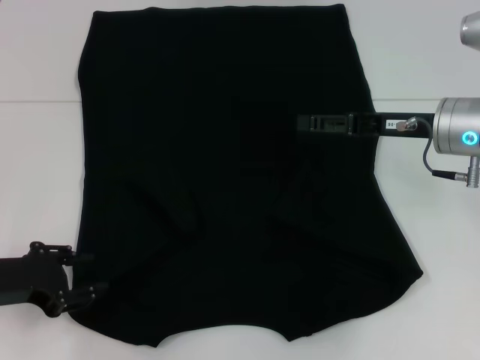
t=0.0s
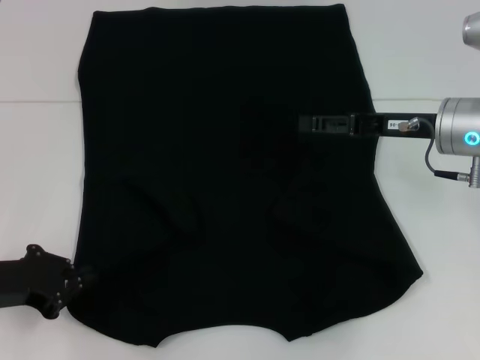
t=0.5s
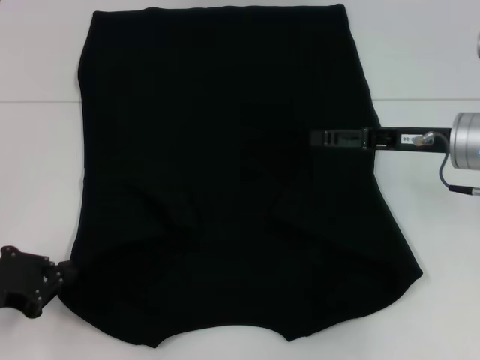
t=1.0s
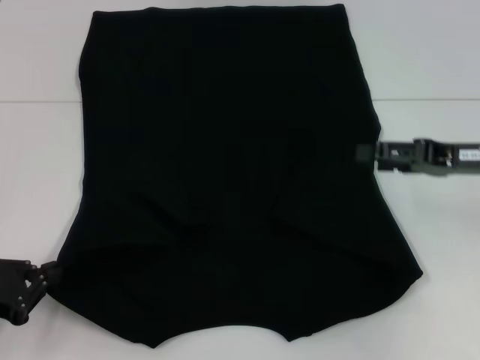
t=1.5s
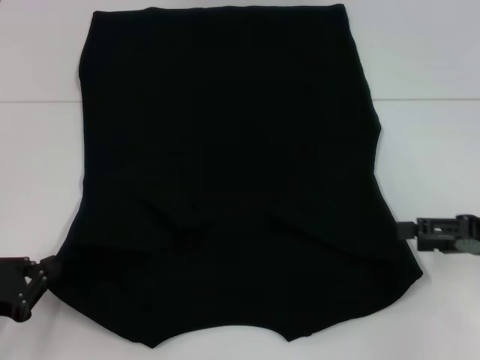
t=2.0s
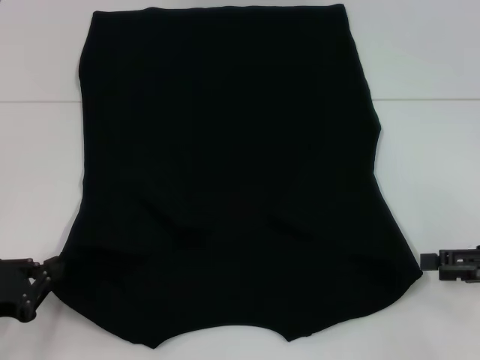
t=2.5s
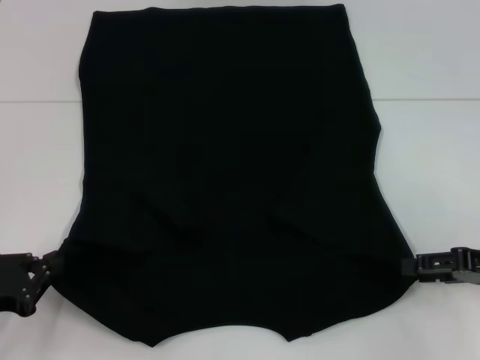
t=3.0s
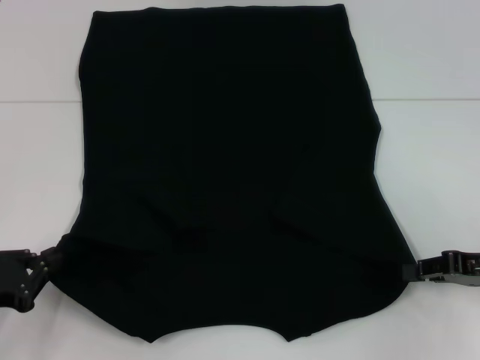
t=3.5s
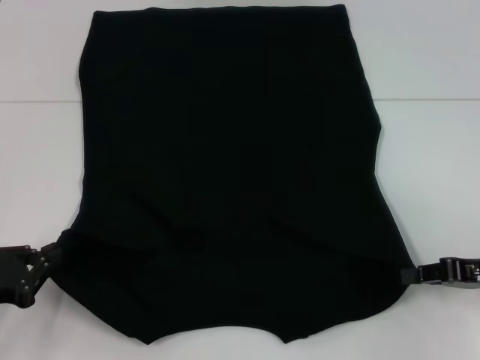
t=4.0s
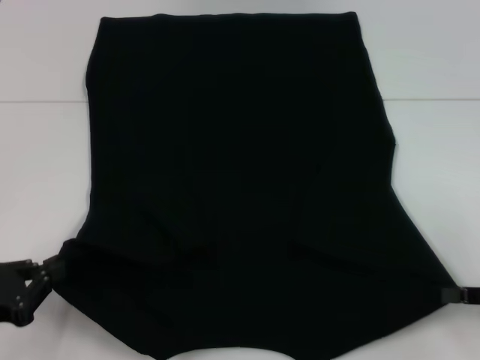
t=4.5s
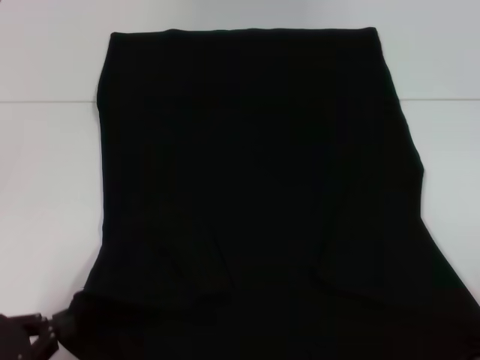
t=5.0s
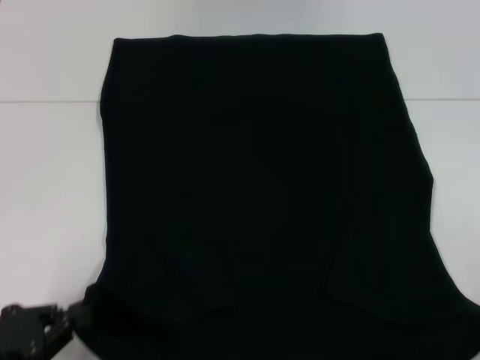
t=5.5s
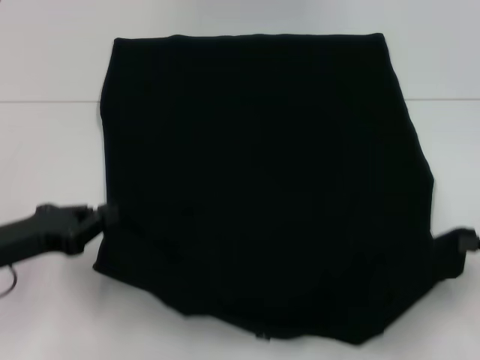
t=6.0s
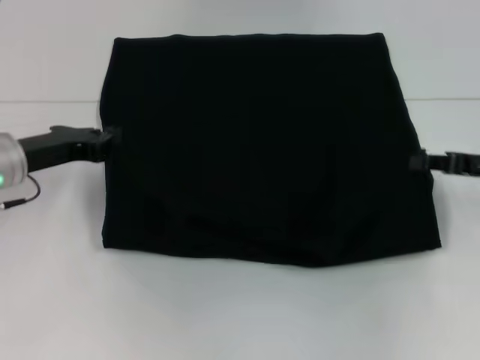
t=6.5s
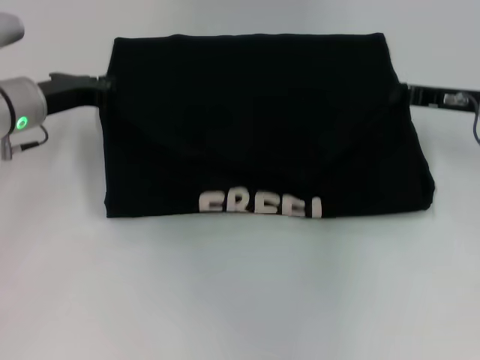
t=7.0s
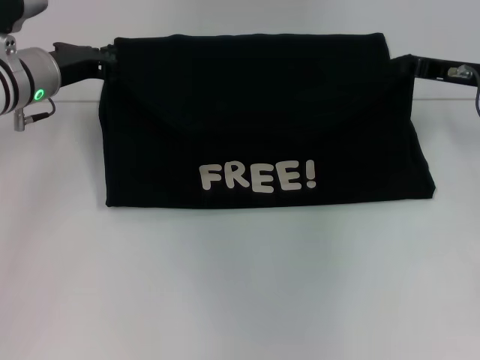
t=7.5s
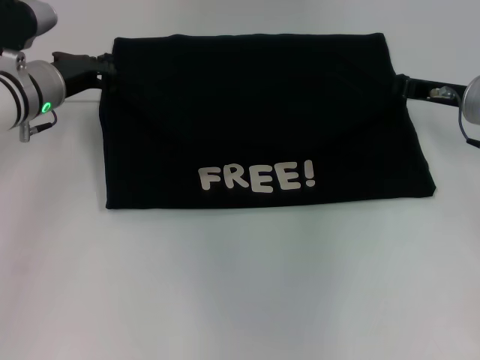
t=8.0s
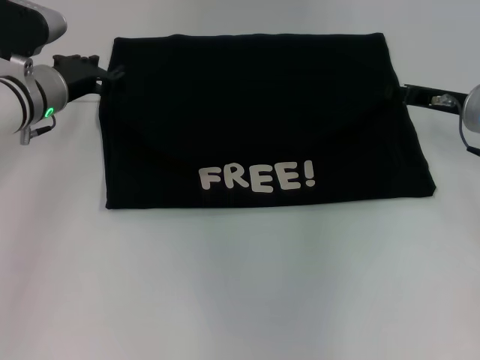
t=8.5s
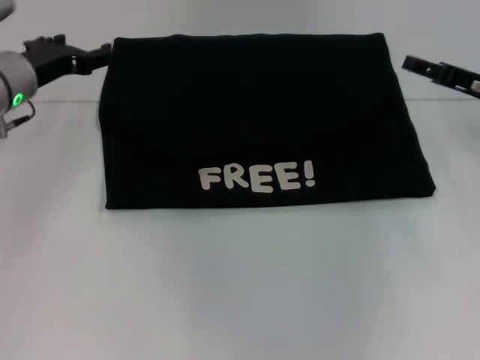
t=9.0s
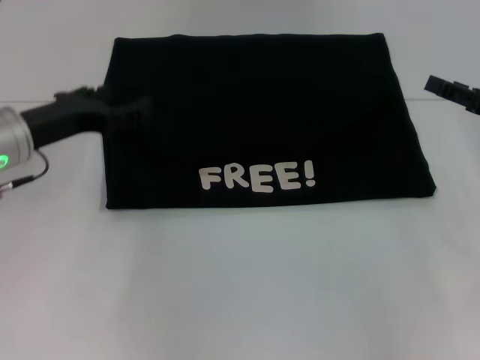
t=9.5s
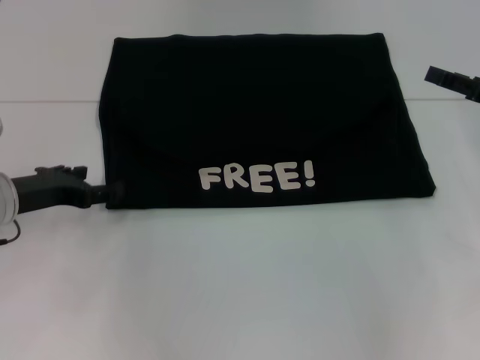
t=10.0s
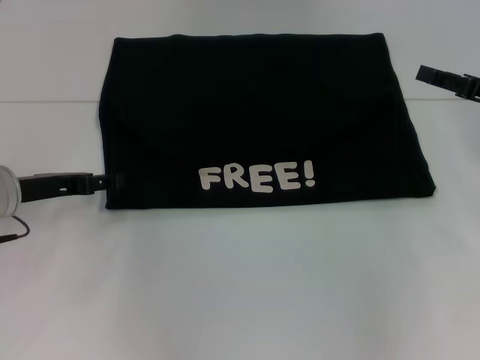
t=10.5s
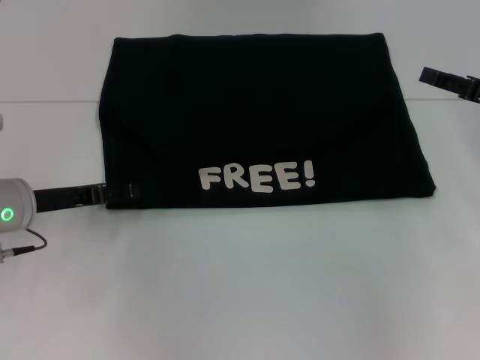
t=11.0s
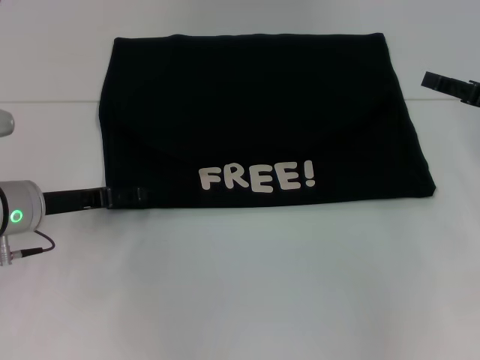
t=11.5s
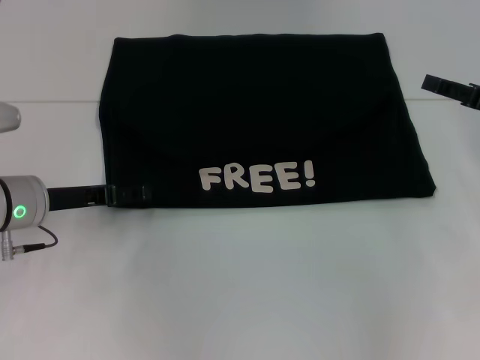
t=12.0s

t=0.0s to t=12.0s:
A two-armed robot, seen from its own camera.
Step, t=1.5s to t=3.5s: Grab the bottom right corner with your right hand.
Step, t=4.0s to t=8.5s: Fold the clothes with your left hand.
Step, t=4.0s to t=8.5s: Fold the clothes with your right hand.
t=0.0s to t=2.0s: The left gripper goes approximately 5 cm backward, and closes, while the right gripper goes approximately 15 cm to the right and backward.
t=2.0s to t=4.0s: The right gripper closes.
t=4.0s to t=6.0s: The right gripper travels to the right by about 5 cm, and goes backward and returns, some 10 cm each way, while the left gripper moves about 5 cm.
t=6.0s to t=8.0s: The right gripper goes roughly 20 cm forward and to the left; the left gripper shifts about 20 cm forward.
t=8.0s to t=10.0s: The right gripper goes approximately 10 cm to the right and backward, and opens; the left gripper shifts some 10 cm backward, and opens.

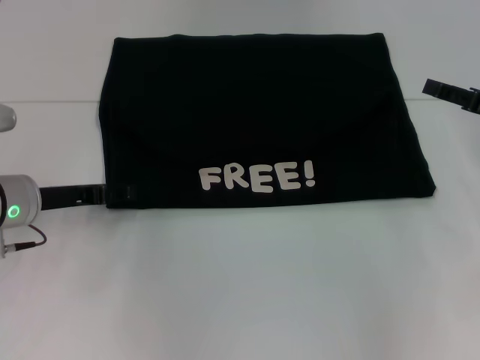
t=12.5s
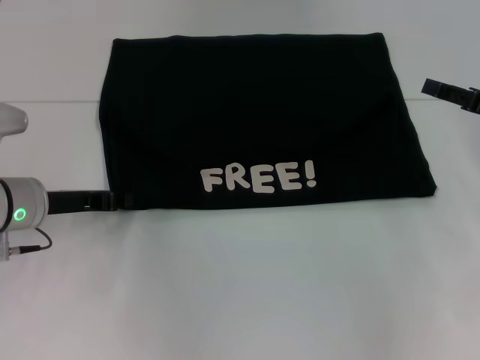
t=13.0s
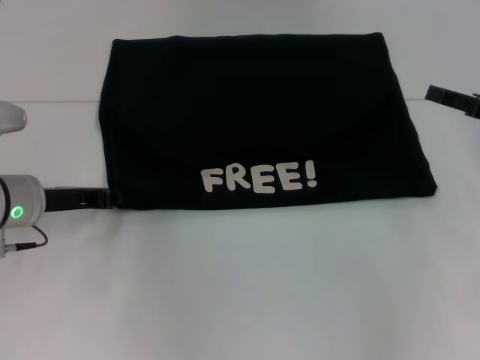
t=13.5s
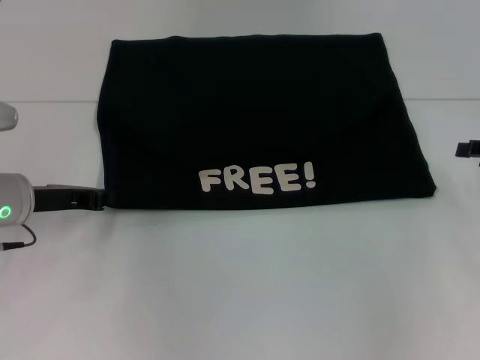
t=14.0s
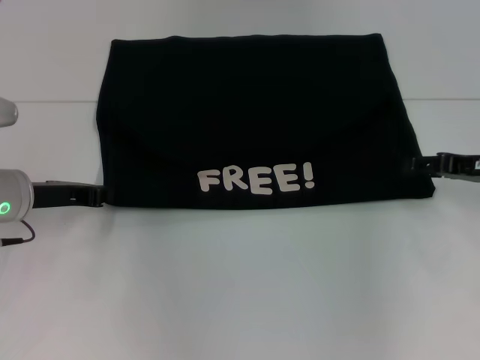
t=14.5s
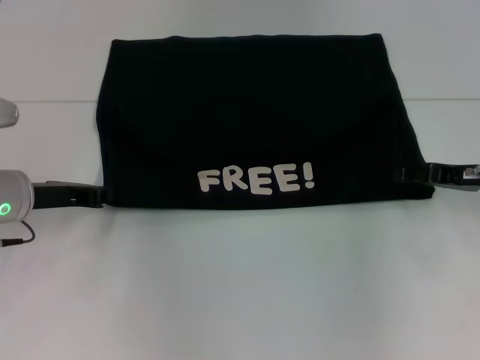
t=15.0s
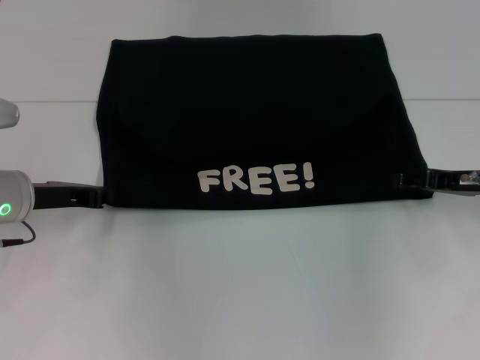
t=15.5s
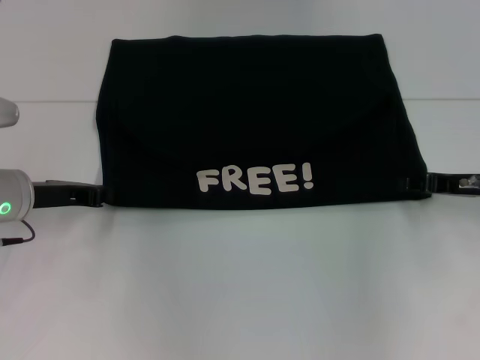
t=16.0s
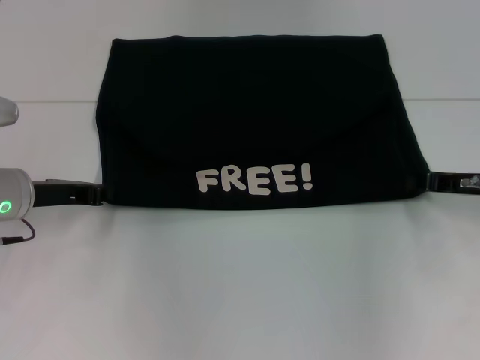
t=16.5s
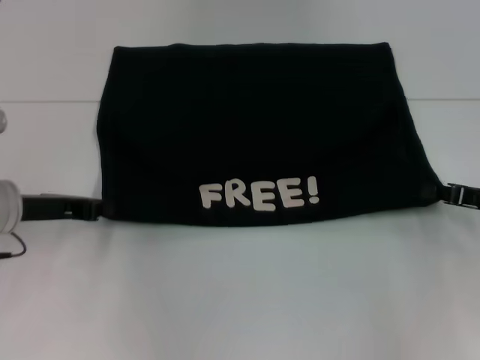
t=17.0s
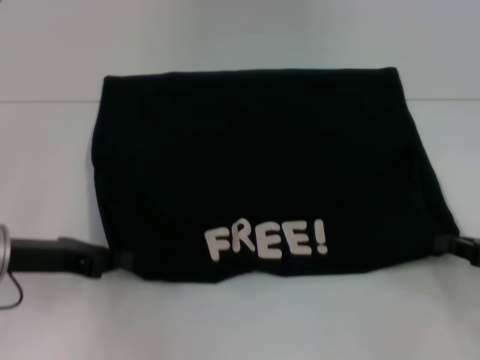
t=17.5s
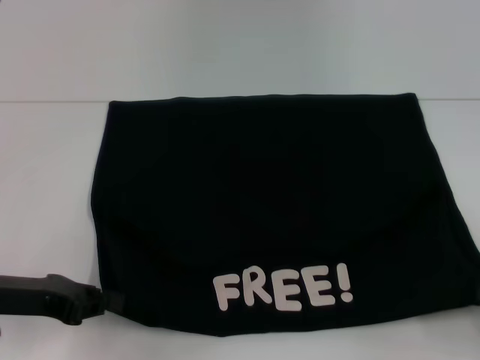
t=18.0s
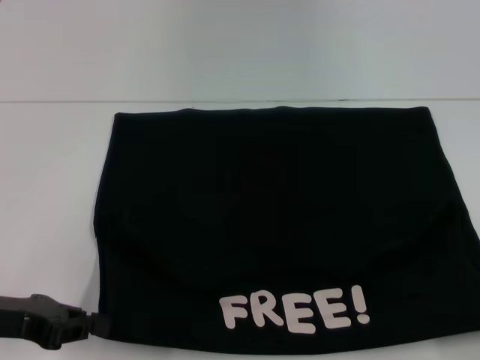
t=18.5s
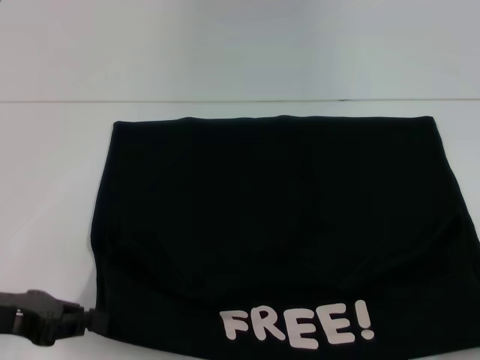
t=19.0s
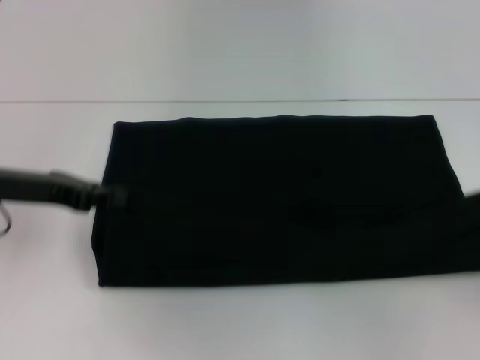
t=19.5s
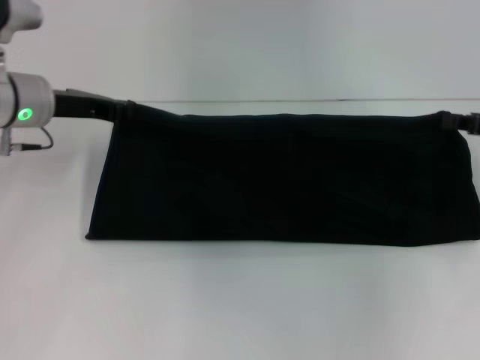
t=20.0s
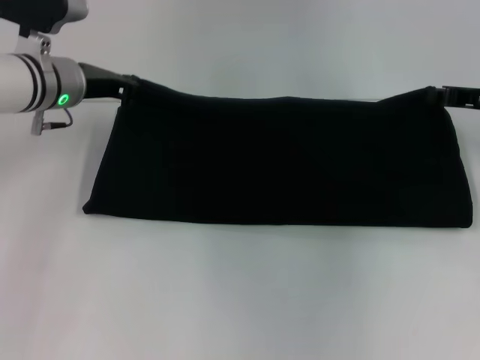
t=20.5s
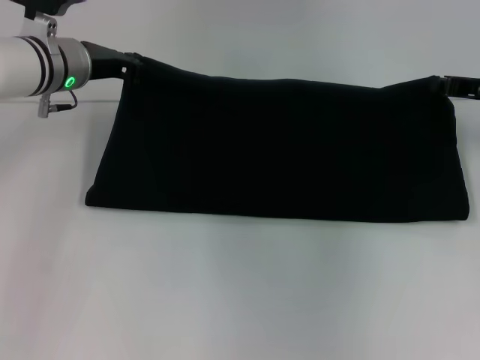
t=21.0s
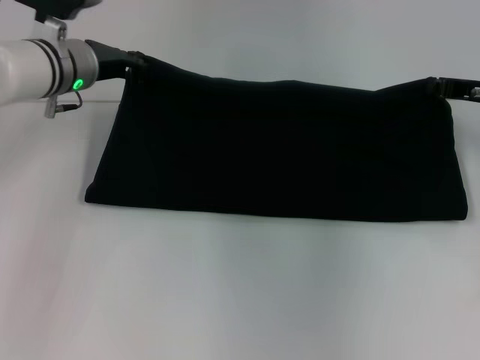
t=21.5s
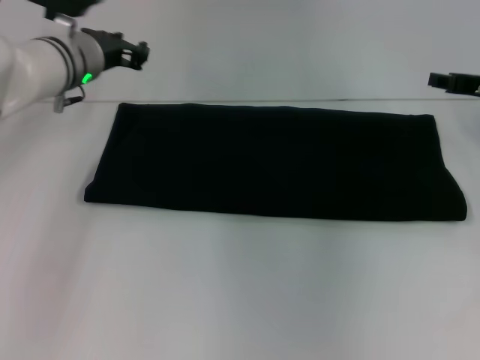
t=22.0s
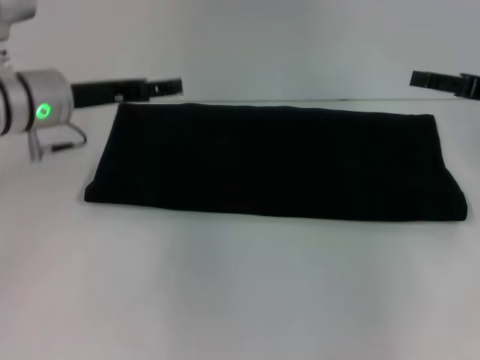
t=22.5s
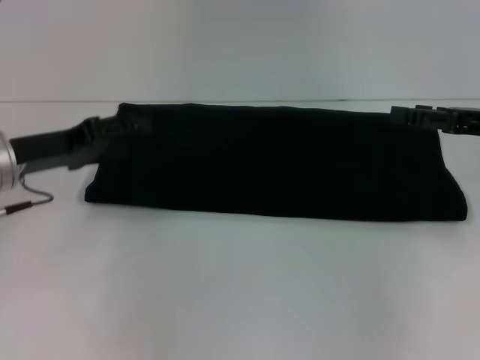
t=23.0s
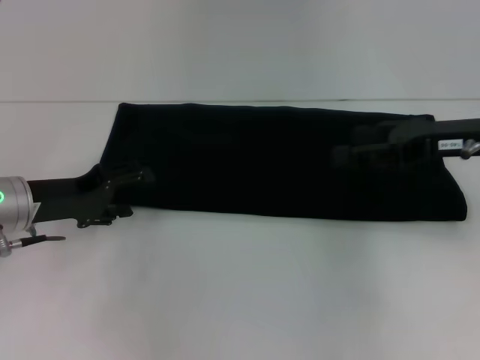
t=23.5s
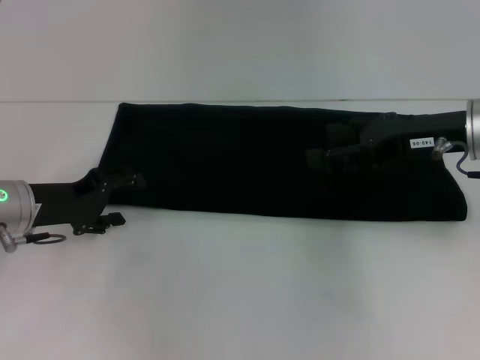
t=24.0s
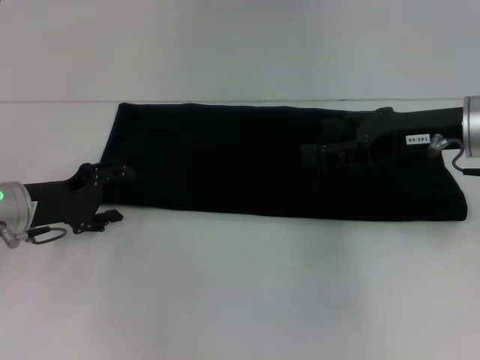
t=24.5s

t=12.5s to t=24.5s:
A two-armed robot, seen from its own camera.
Step, t=12.5s to t=18.5s: Pull the clothes with your left hand.
Step, t=12.5s to t=18.5s: Pull the clothes with your right hand.
Step, t=19.0s to t=21.5s: Fold the clothes with your right hand.
t=12.5s to t=14.5s: The left gripper closes.
t=14.5s to t=16.5s: The right gripper closes.
t=16.5s to t=18.5s: The left gripper is displaced backward by approximately 10 cm. Meanwhile the right gripper travels backward and to the right by some 20 cm.
t=18.5s to t=20.5s: The right gripper shifts some 25 cm forward; the left gripper is displaced forward and to the right by roughly 25 cm.
t=20.5s to t=22.5s: The right gripper opens up. Meanwhile the left gripper changes place by approximately 5 cm, and opens.
t=22.5s to t=24.5s: The right gripper is displaced to the left by some 10 cm. Meanwhile the left gripper heads downward and backward, covering roughly 10 cm.

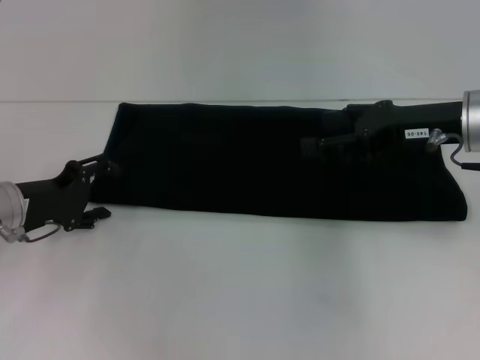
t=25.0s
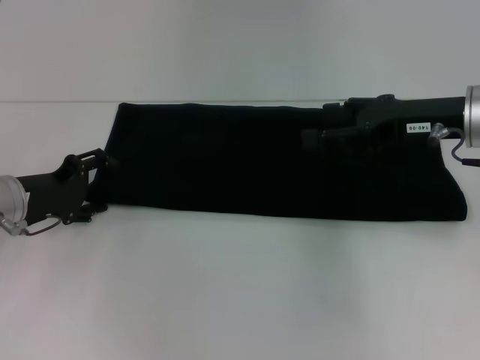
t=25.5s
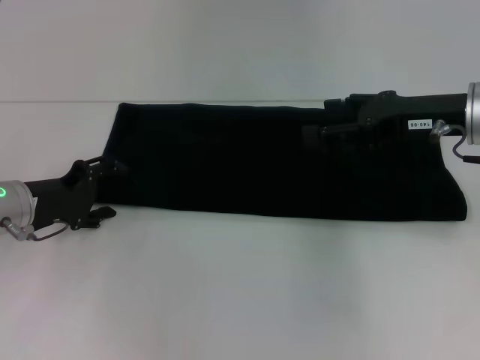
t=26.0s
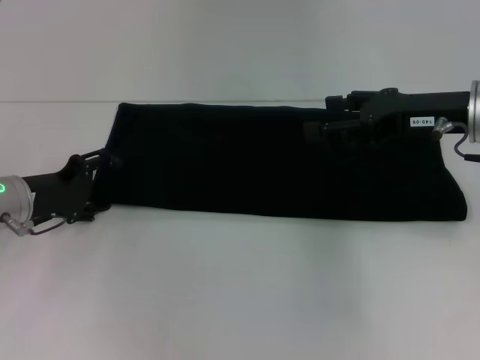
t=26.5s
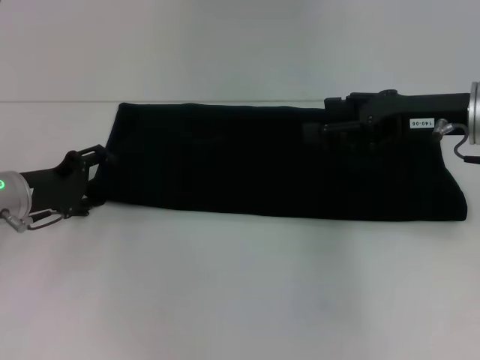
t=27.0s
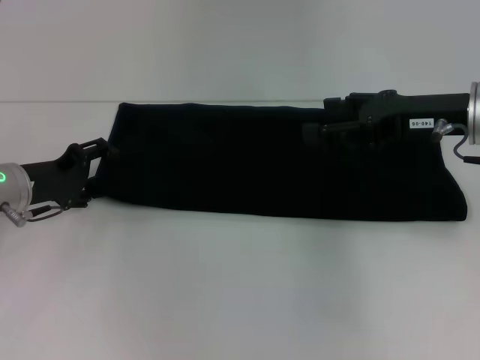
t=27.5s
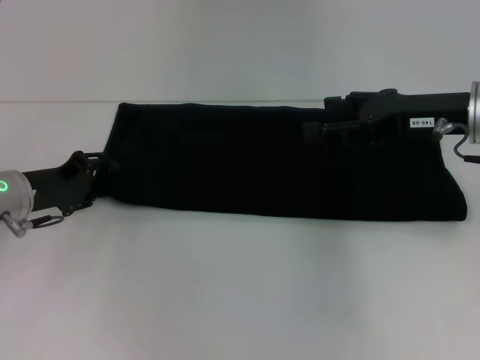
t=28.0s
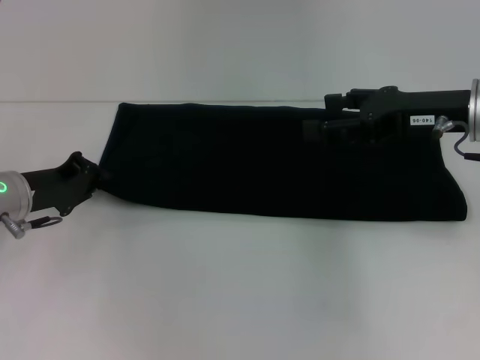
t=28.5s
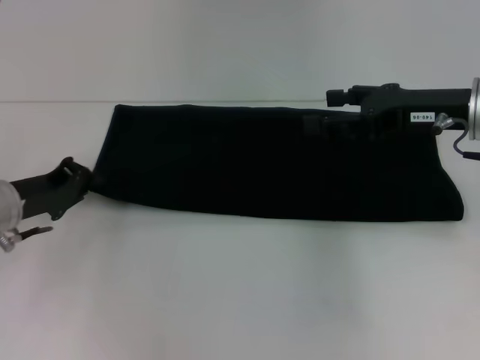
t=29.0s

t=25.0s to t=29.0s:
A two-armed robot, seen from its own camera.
t=25.0s to t=27.0s: The grippers make only small movements.
t=27.0s to t=29.0s: The left gripper closes its fingers.
